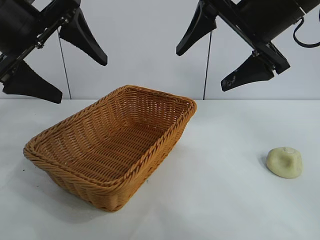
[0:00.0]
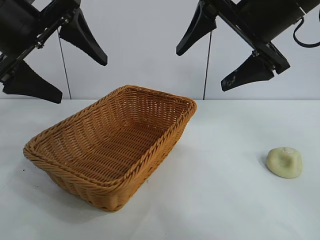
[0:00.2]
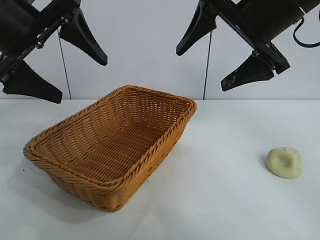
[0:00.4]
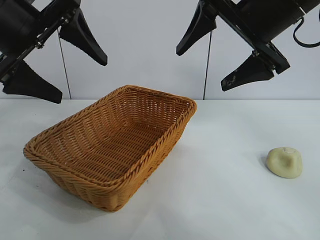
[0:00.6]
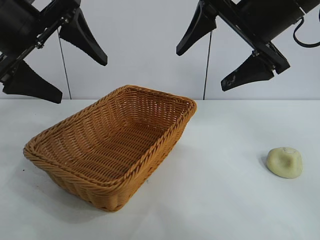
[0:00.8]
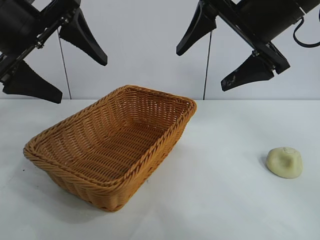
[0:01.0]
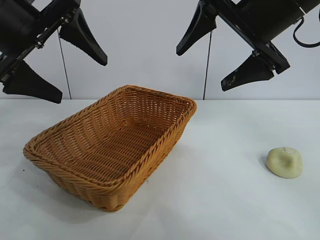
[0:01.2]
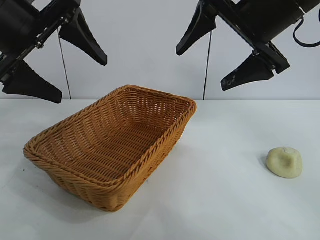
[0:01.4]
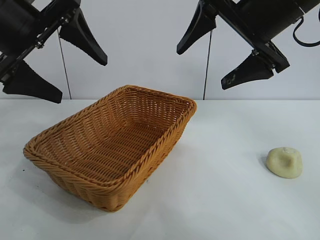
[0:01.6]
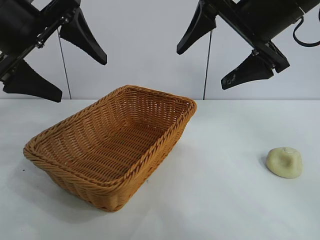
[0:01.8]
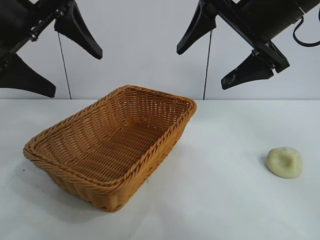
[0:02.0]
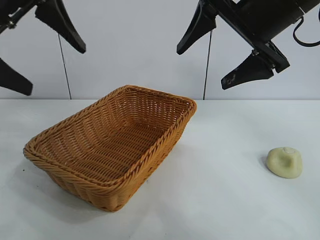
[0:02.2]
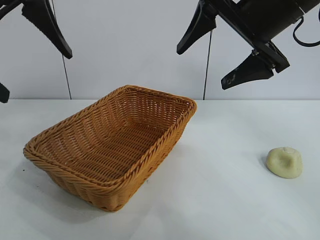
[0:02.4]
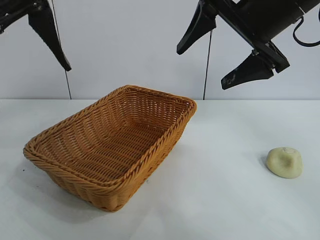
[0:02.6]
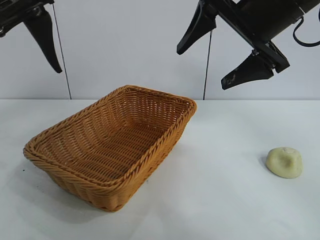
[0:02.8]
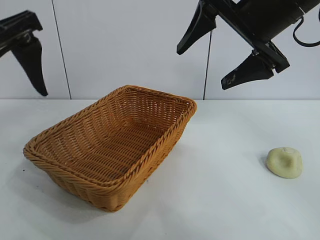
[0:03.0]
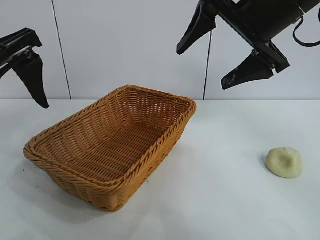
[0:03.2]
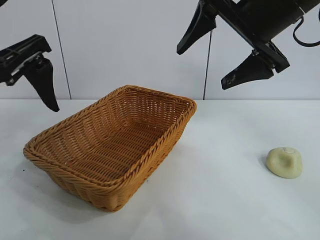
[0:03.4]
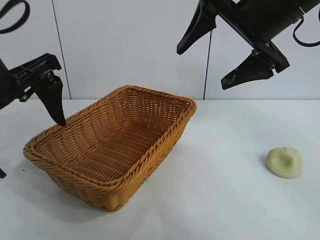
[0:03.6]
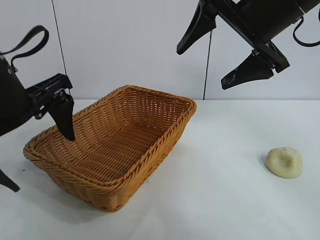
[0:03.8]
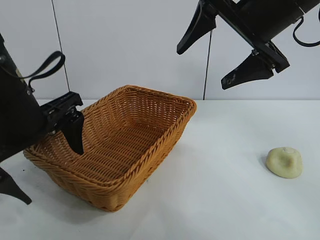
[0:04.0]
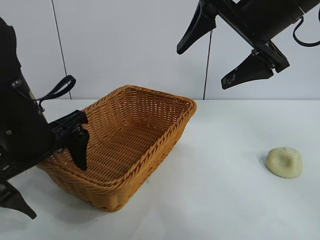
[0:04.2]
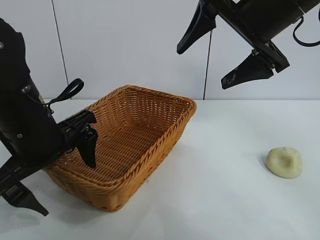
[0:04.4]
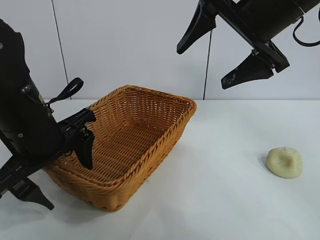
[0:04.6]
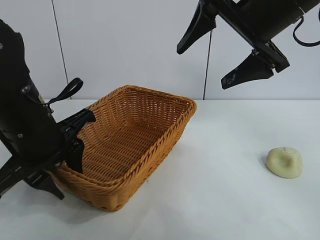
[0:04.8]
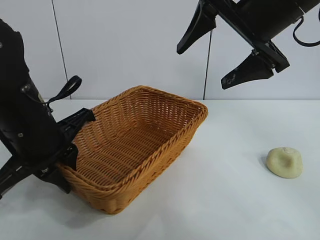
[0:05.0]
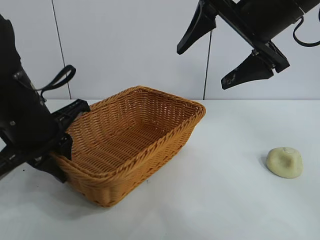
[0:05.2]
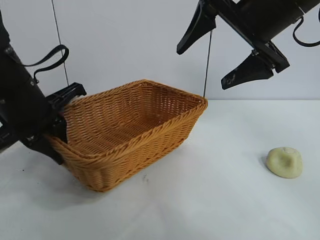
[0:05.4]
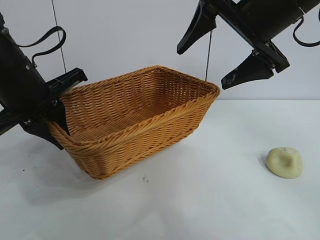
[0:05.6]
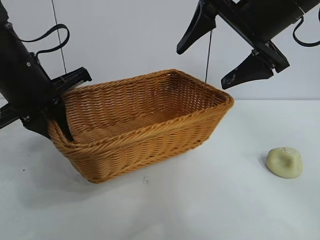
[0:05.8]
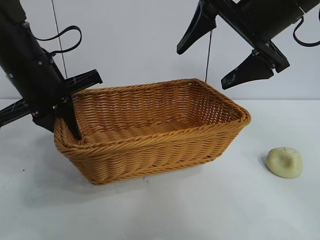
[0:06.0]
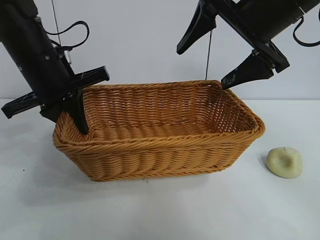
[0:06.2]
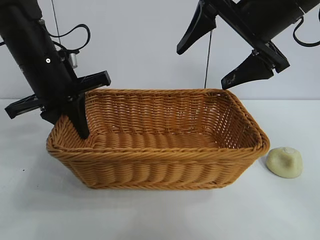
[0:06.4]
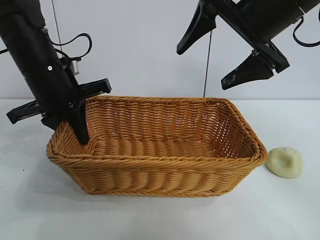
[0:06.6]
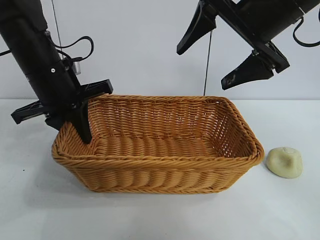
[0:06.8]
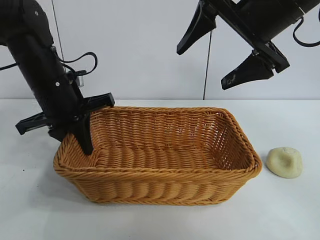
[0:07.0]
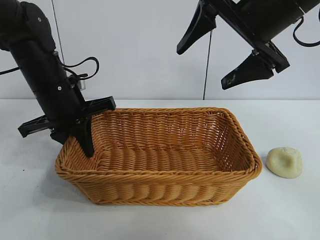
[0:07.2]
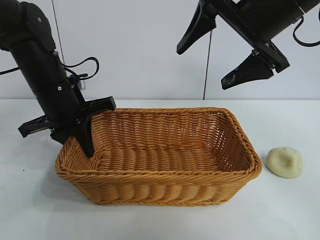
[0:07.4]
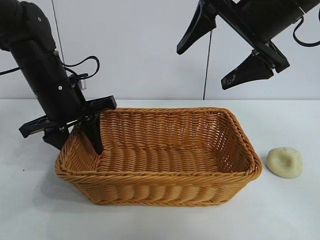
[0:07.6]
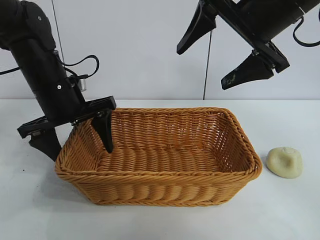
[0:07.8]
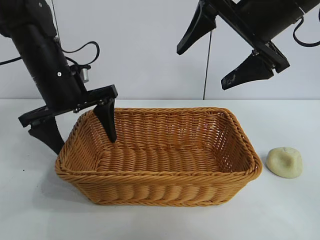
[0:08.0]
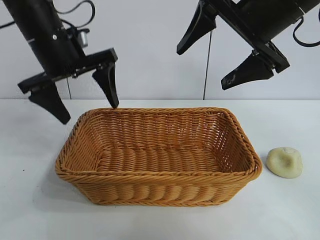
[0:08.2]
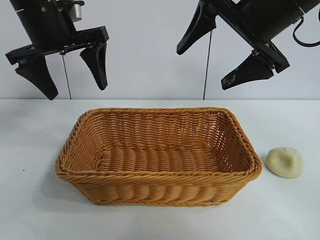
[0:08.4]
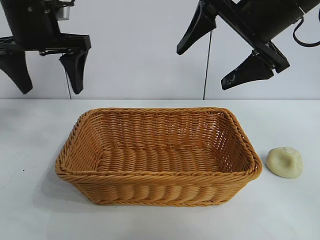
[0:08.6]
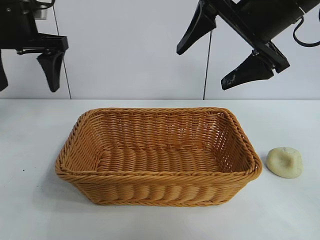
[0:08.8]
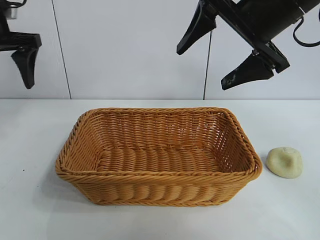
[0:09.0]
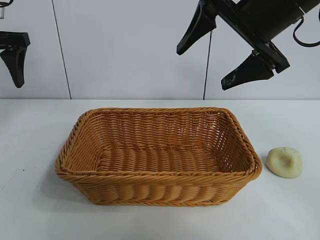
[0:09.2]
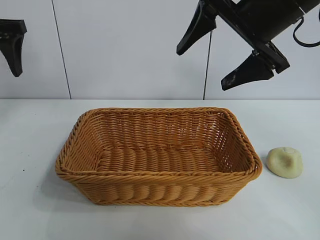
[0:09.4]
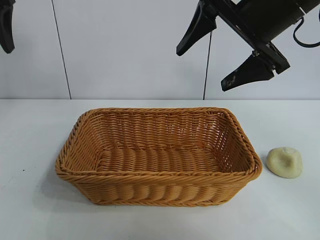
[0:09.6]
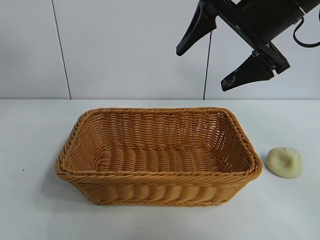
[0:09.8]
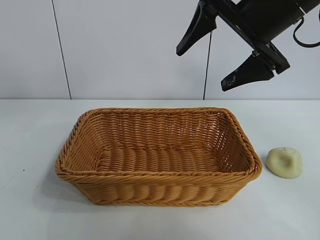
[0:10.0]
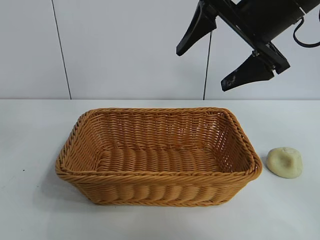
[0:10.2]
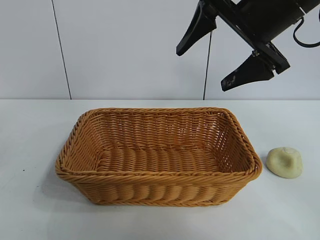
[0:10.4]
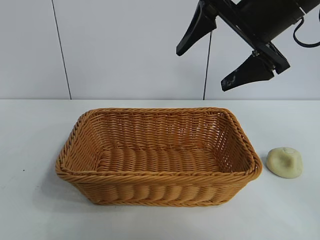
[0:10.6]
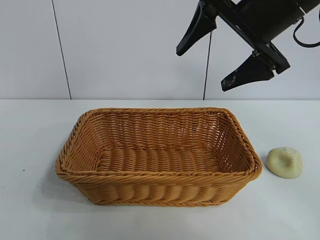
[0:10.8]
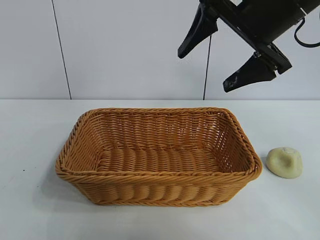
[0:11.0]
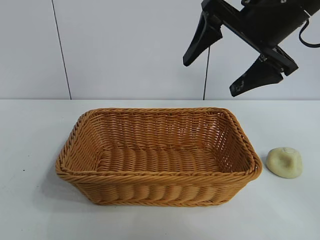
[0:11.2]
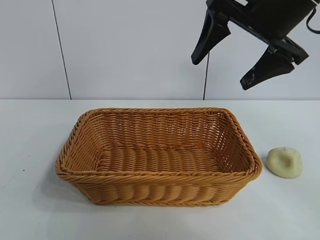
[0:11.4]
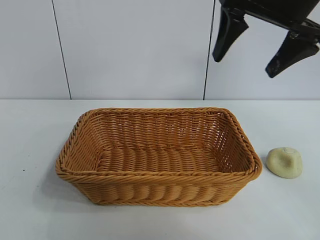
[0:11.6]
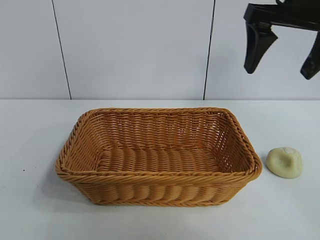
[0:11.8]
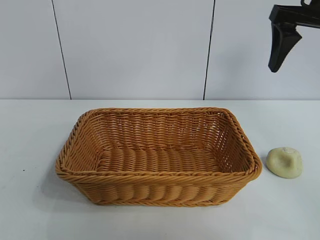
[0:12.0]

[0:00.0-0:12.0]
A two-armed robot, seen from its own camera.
Task of the whole recording: pick up the egg yolk pastry and put it into the basket.
Step, 0:01.4 to 0:04.8: Grasp the basket with left gripper.
Step, 0:05.0 to 0:07.6: Place the basket in the center of view with left gripper.

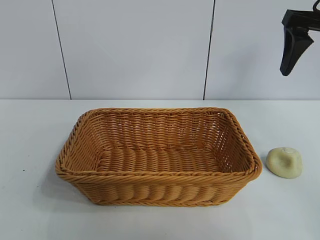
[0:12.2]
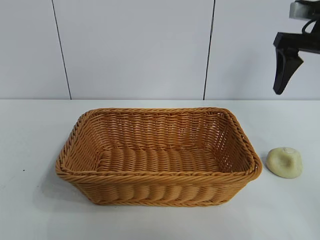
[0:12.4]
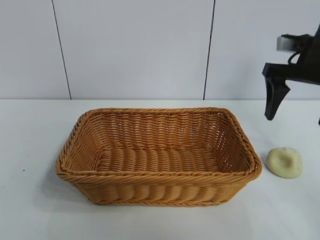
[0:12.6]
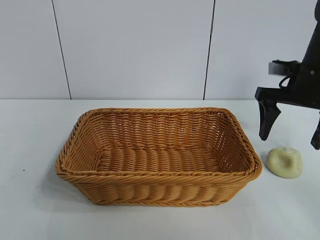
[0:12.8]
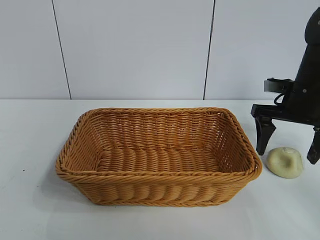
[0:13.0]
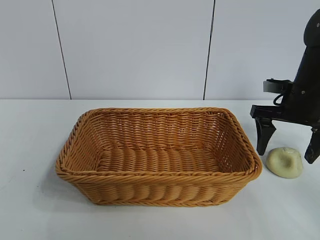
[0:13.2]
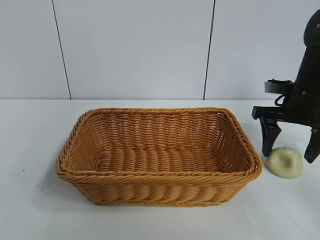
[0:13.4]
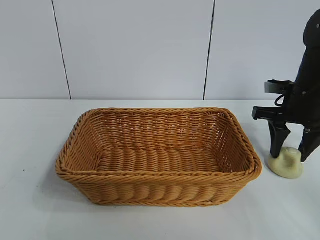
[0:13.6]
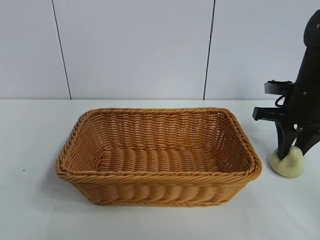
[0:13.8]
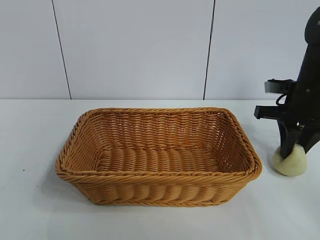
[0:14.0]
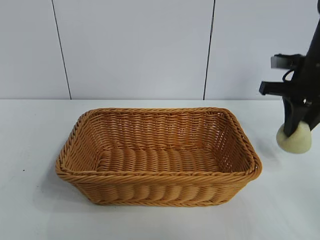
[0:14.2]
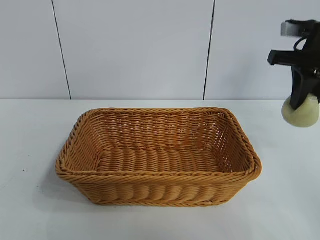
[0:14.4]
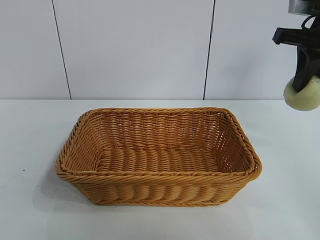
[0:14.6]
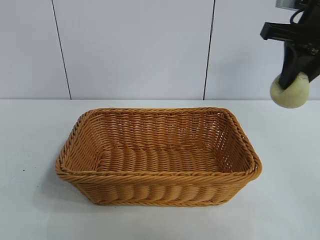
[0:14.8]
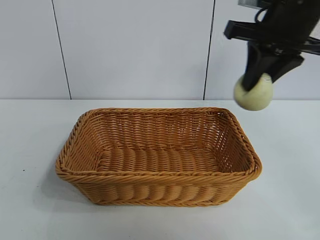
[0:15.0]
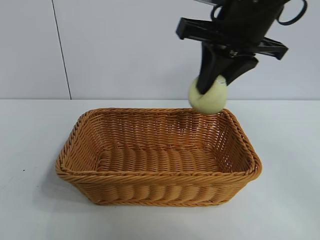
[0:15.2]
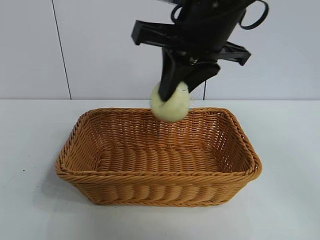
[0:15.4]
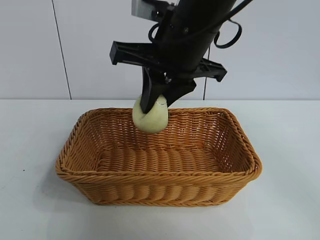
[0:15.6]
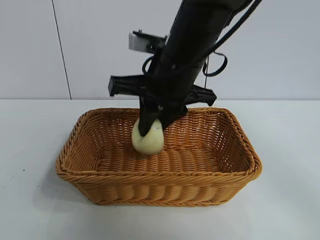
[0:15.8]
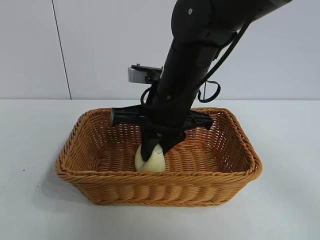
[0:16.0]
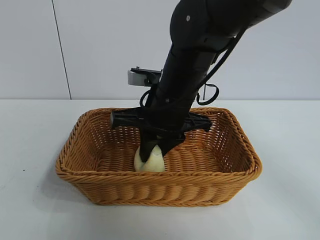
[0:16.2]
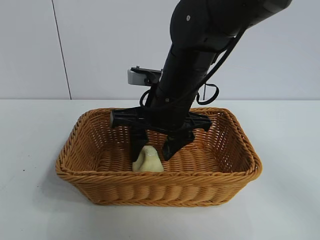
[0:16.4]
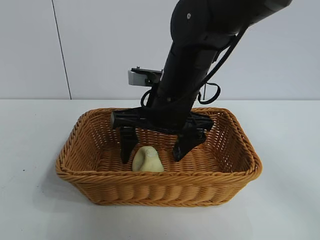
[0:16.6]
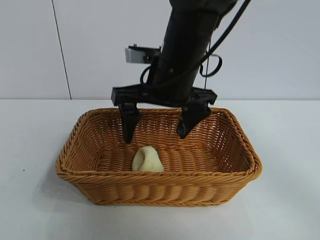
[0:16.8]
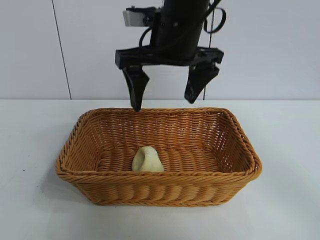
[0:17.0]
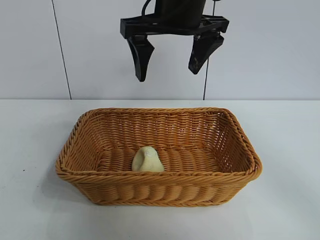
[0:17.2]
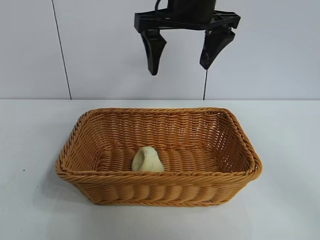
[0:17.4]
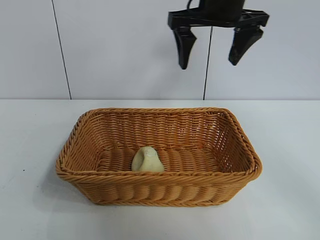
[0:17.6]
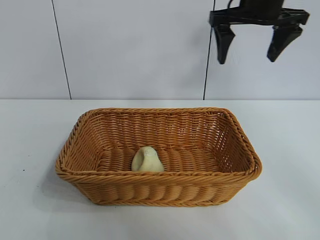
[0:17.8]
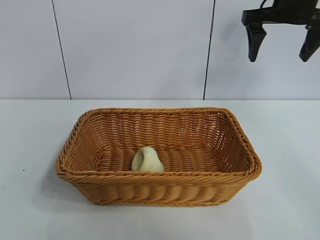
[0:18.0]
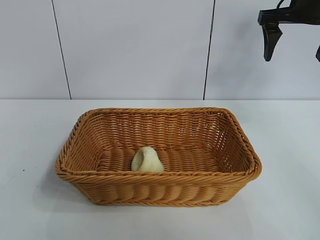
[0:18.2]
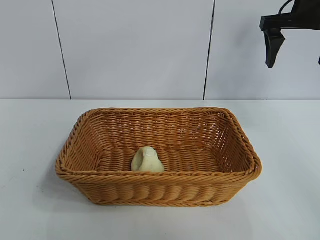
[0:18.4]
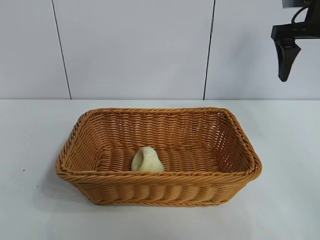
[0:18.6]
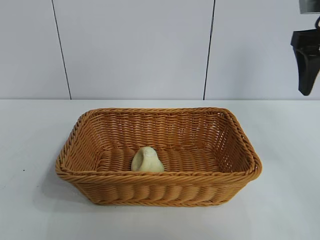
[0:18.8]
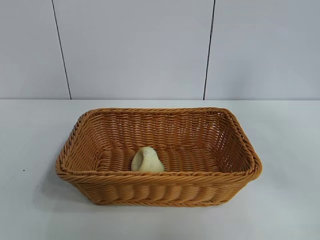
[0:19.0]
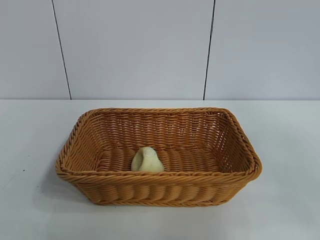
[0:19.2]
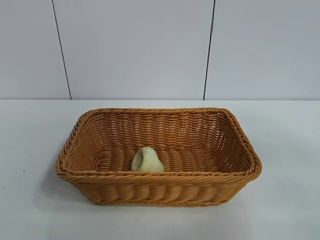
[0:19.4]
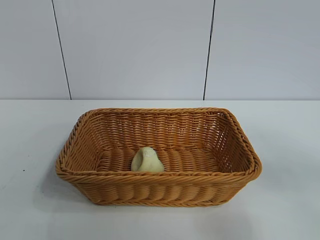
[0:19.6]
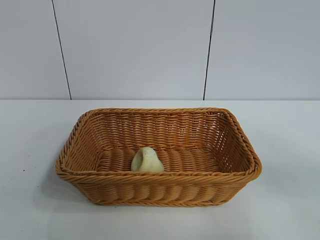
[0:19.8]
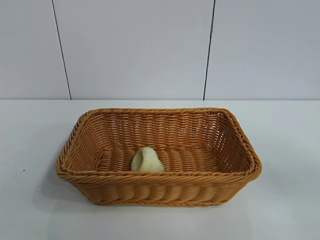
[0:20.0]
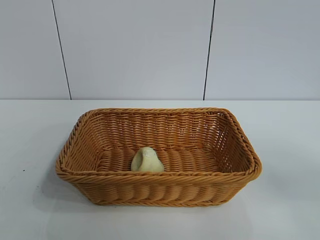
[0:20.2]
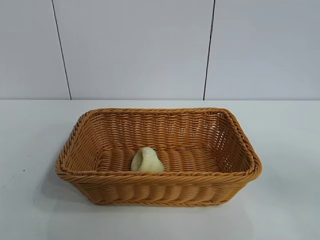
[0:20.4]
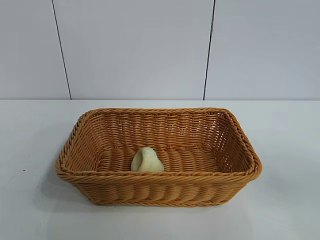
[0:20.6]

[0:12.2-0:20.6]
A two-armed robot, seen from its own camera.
Task of the whole recording: pick up the egg yolk pastry and put it into the basket.
Step, 0:14.0 to 0:16.2: Place the egg yolk pastry in the basket with right gripper.

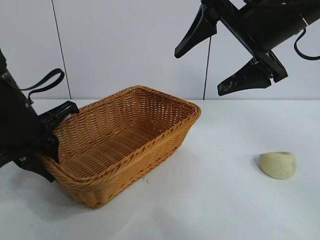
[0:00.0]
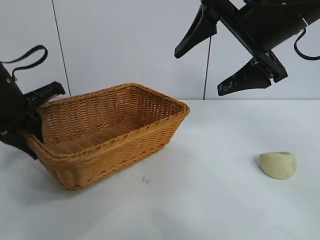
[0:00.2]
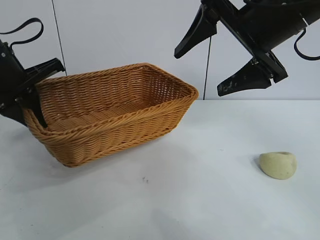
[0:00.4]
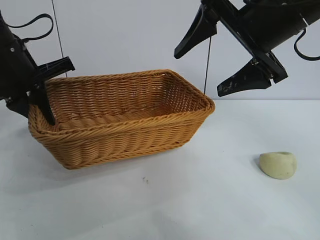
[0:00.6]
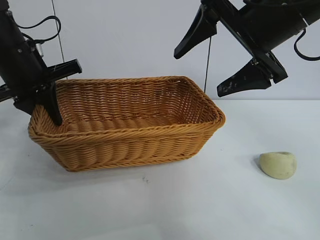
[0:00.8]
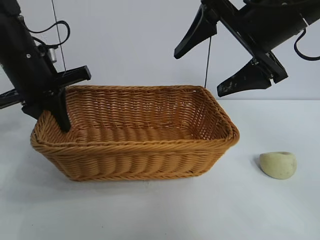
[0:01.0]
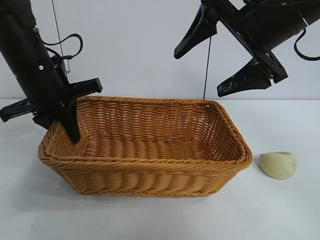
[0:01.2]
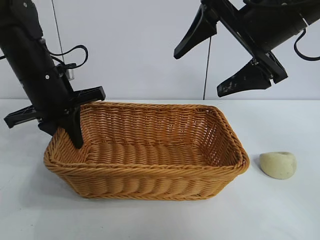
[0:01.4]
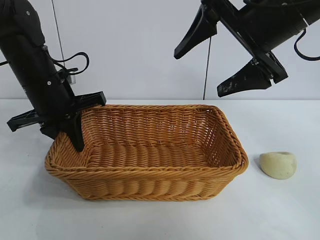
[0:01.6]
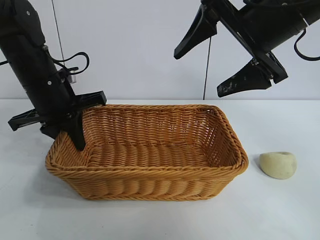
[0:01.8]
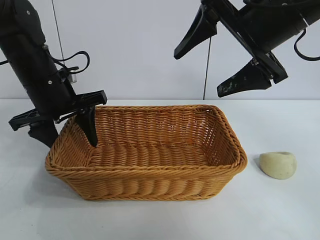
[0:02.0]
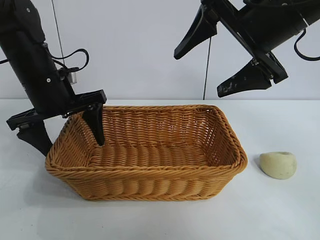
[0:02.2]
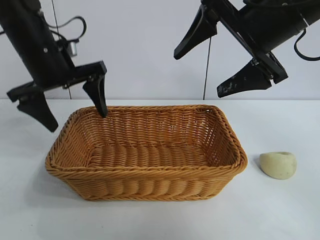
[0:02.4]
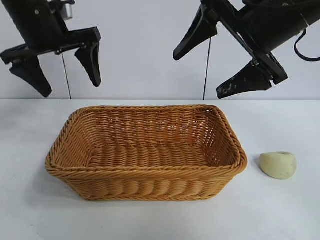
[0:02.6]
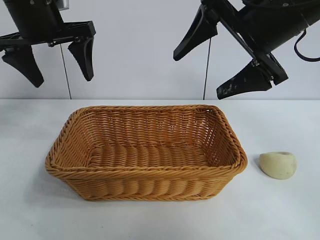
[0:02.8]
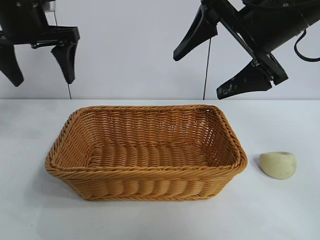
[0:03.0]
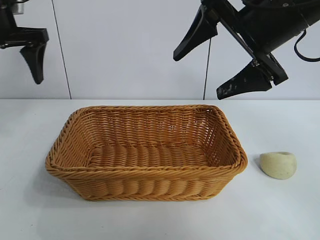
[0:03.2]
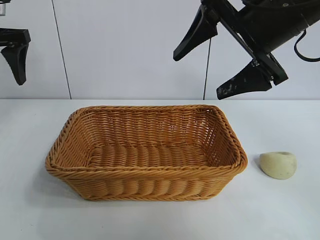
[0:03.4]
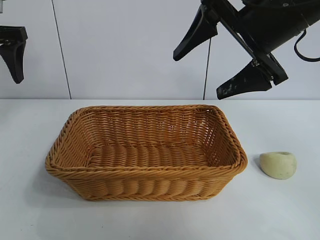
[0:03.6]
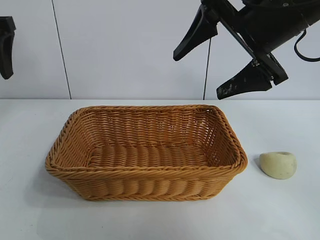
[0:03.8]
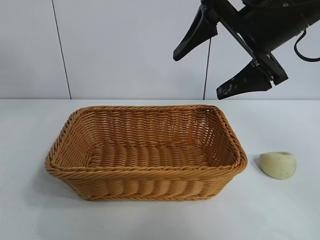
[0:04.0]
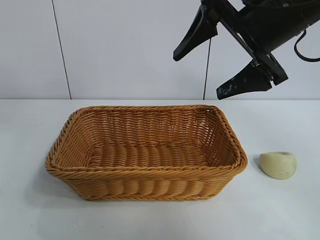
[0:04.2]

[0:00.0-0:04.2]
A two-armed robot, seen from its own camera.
Task of the whole recording: pick up the egg yolk pastry and put it into the basket.
Step, 0:00.0 to 0:02.0: Place the basket in the center of view with left gripper.
